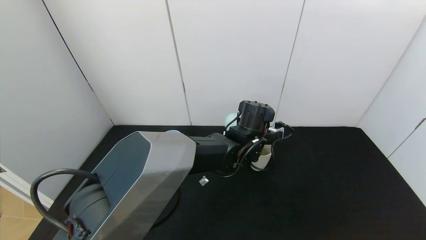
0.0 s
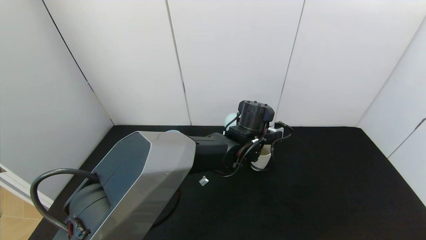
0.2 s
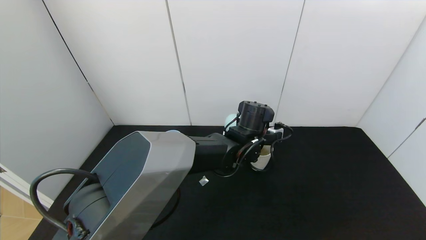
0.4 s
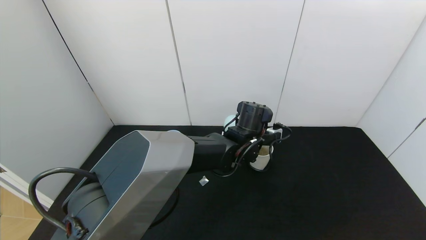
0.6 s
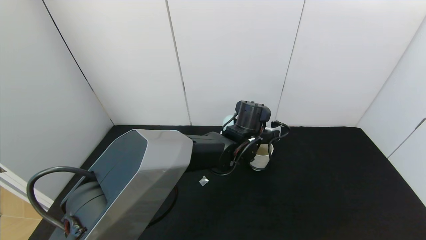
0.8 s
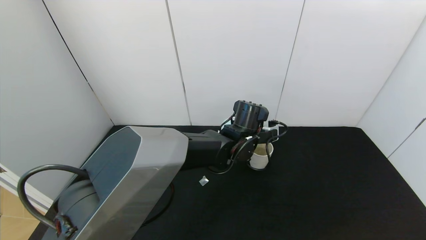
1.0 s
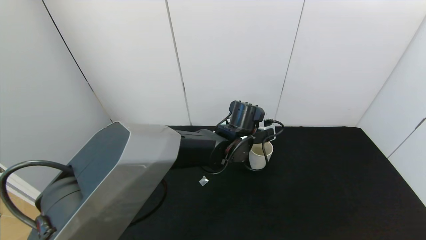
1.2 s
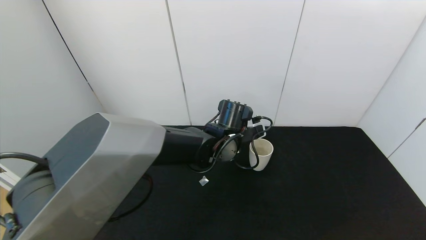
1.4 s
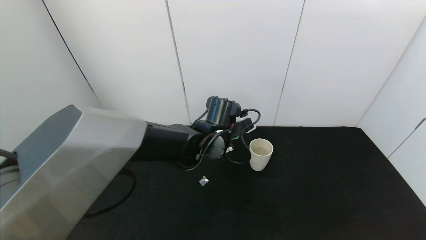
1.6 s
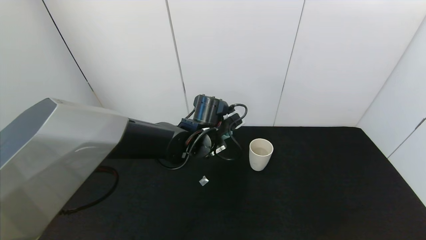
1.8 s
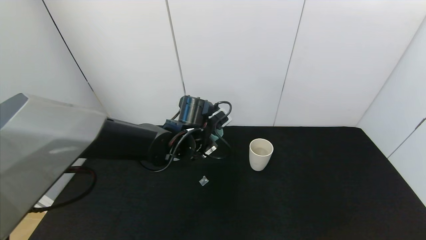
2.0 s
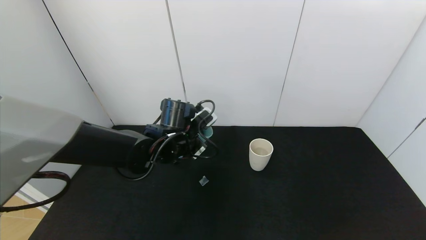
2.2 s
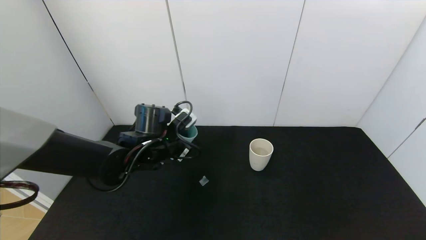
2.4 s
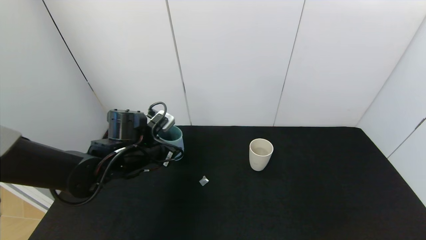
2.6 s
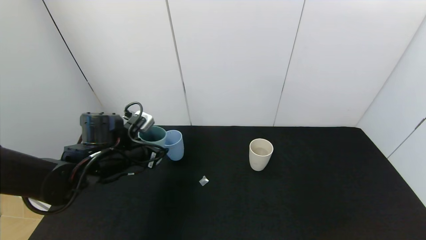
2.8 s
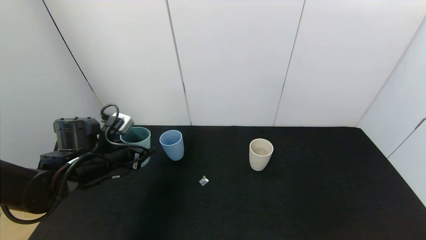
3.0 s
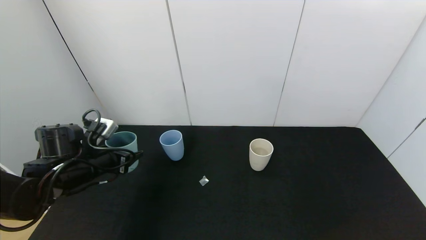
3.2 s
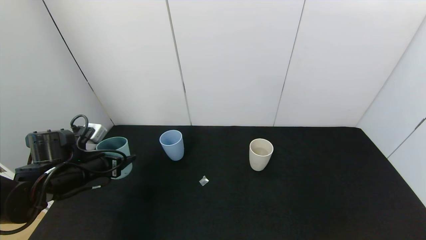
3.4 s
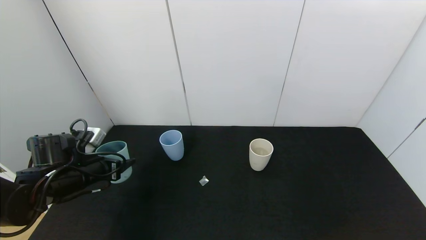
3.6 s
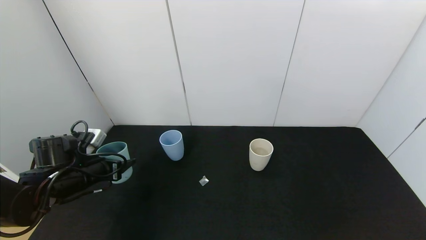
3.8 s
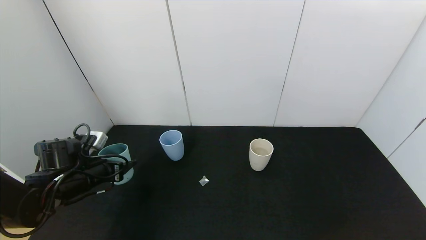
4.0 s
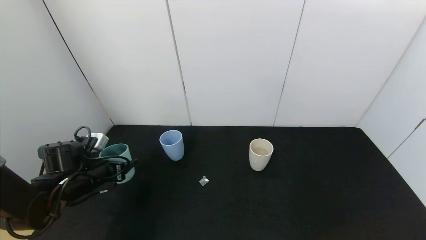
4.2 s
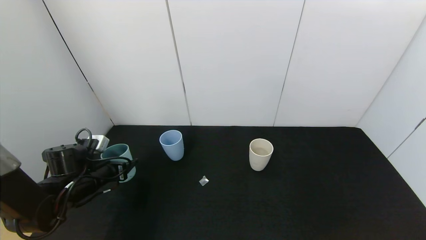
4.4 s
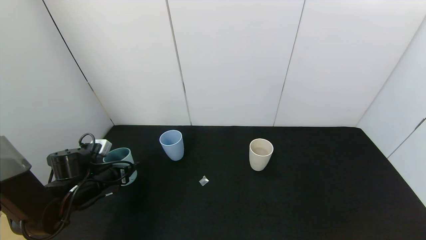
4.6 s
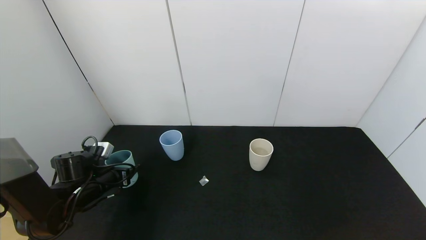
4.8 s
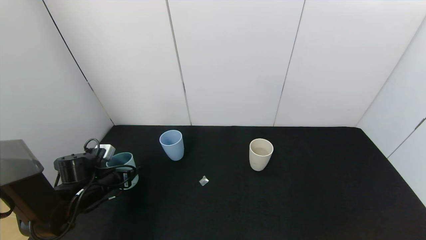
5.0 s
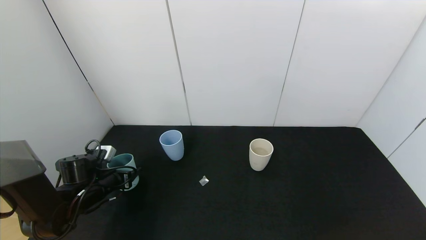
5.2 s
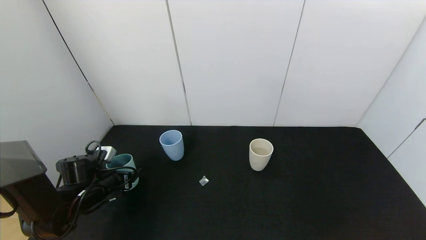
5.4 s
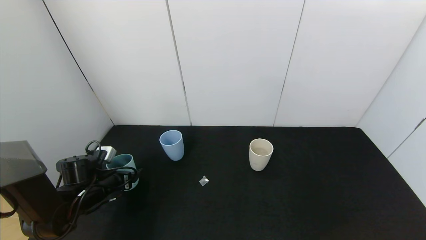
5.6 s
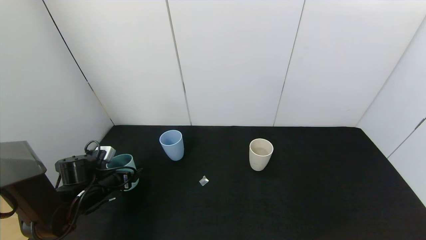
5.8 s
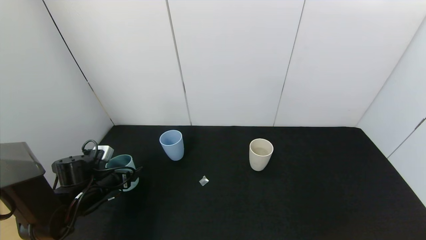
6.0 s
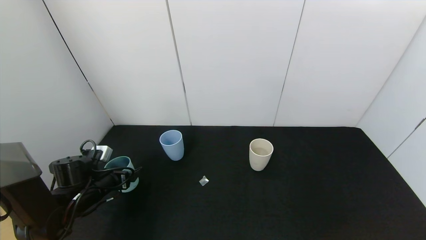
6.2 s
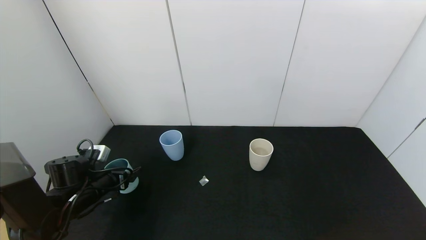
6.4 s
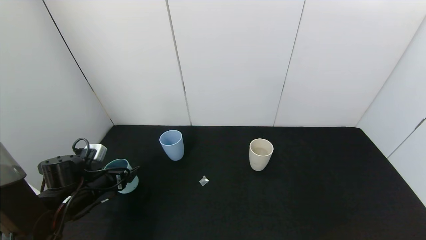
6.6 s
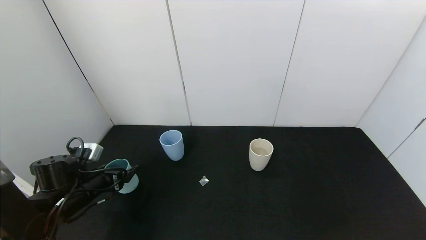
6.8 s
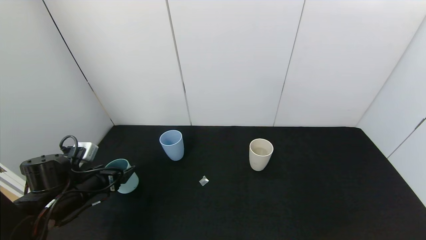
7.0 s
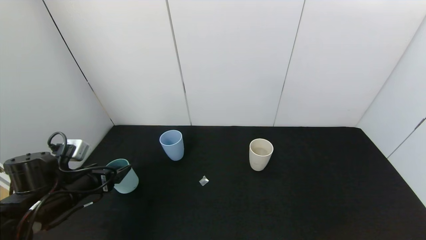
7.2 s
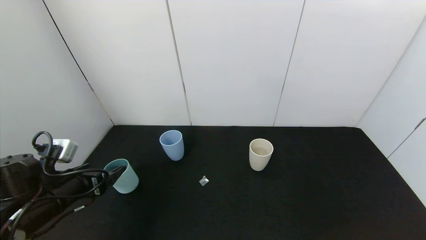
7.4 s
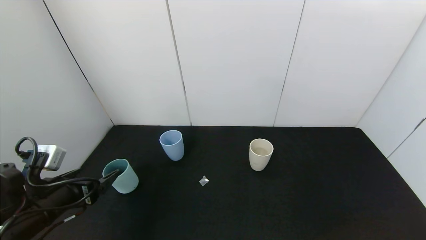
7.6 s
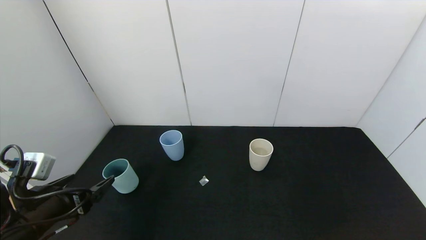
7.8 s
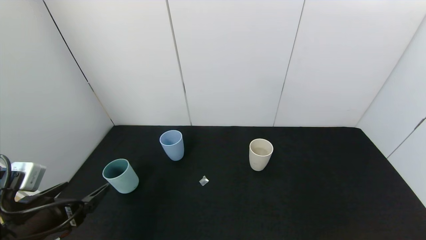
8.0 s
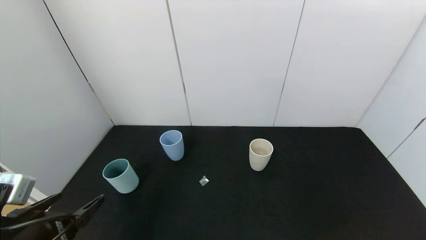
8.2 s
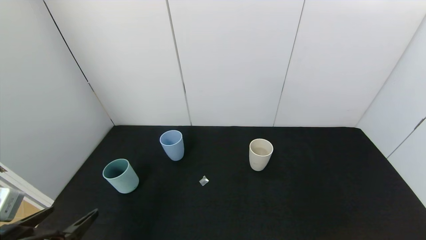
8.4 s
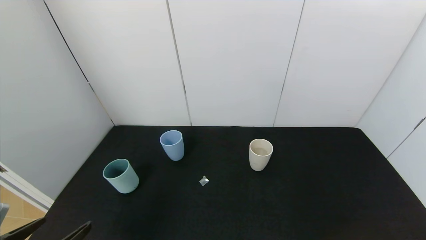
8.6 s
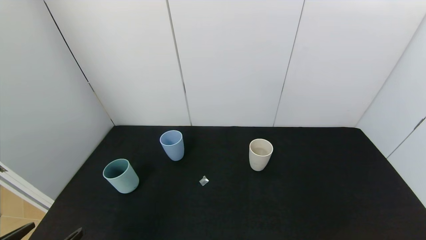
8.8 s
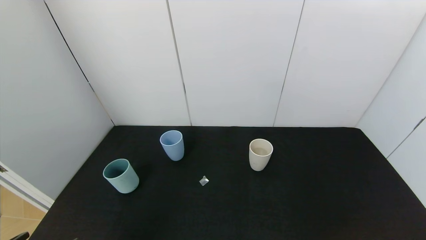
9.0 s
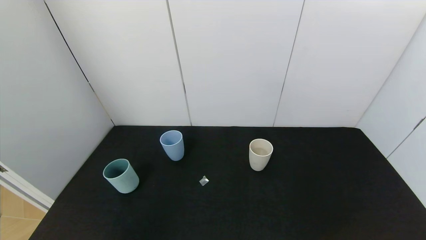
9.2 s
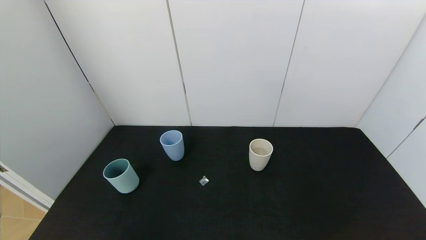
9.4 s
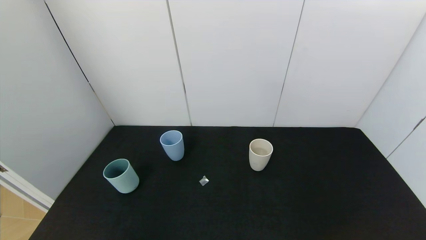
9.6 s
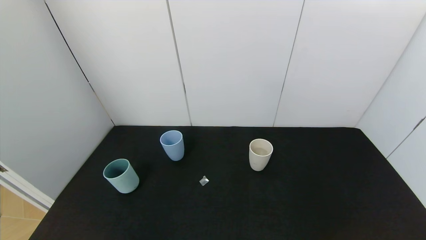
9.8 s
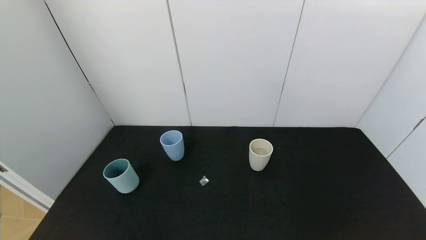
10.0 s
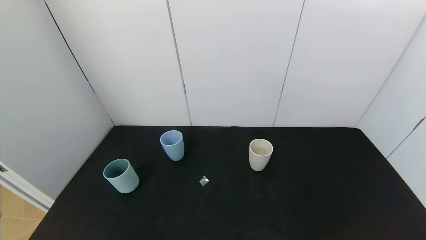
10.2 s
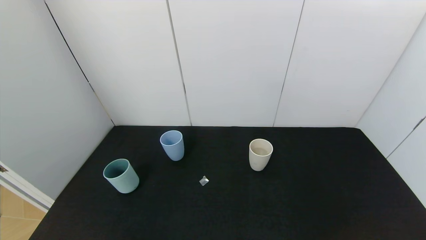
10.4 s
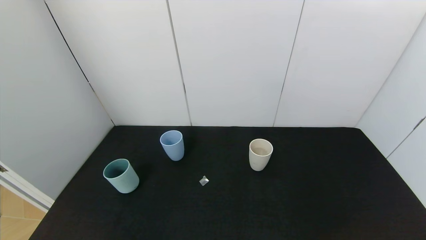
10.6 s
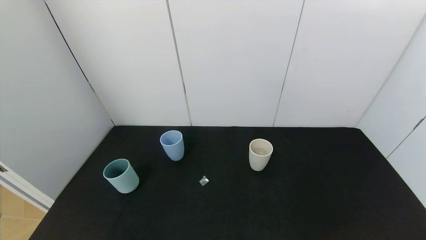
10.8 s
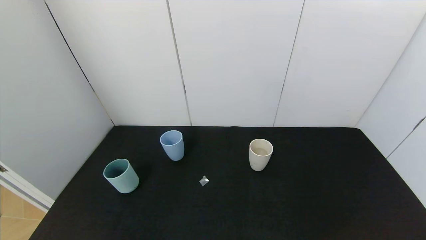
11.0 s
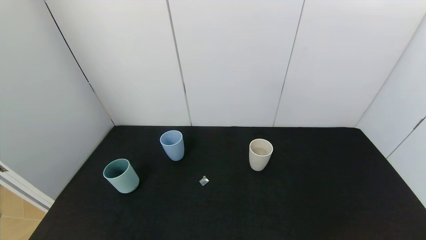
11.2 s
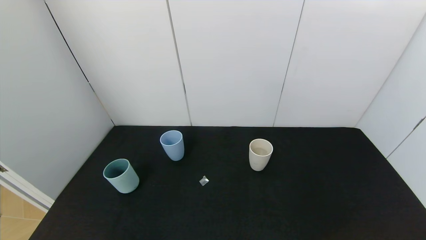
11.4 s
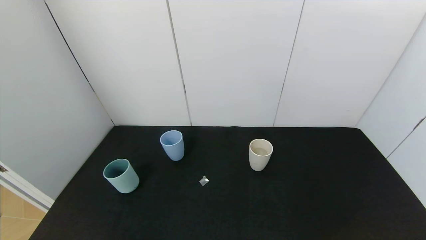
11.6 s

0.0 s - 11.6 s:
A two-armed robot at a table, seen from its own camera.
Task of the whole recording: use the gripper to pour the water into the other two cups on black table.
Step, 1.2 s - 7.6 s: Place the green cup with the left gripper.
0.0 s - 1.4 s: The left gripper is displaced to the left by some 5 cm.
1.4 s - 2.8 s: The left gripper is displaced to the left by about 25 cm.
2.8 s - 4.4 s: The left gripper moves to the left and downward, roughly 10 cm.
4.4 s - 5.8 s: The left gripper opens.
5.8 s - 7.2 s: The left gripper shifts approximately 10 cm backward and upward.
7.2 s - 8.8 s: The left gripper goes some 20 cm backward.
